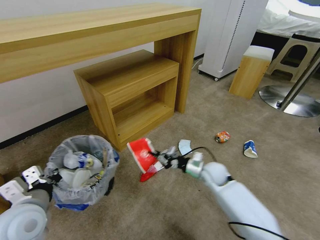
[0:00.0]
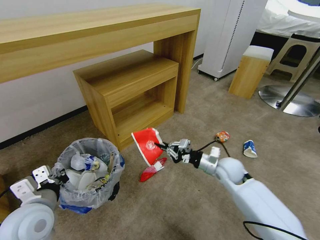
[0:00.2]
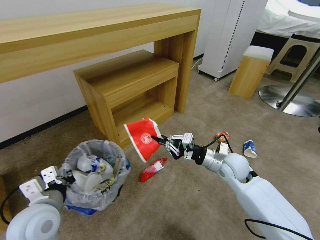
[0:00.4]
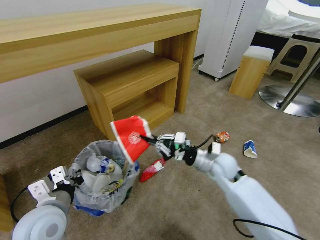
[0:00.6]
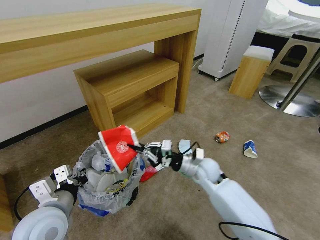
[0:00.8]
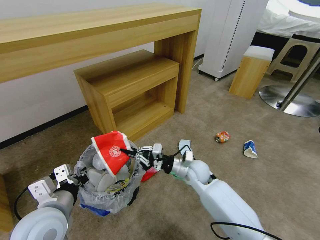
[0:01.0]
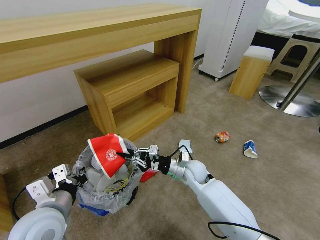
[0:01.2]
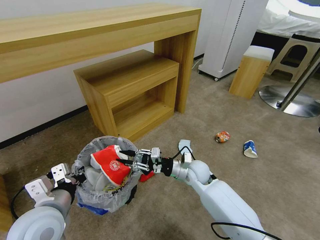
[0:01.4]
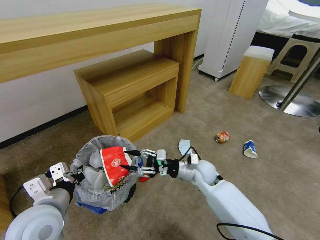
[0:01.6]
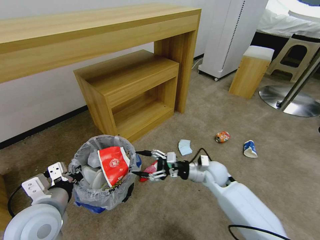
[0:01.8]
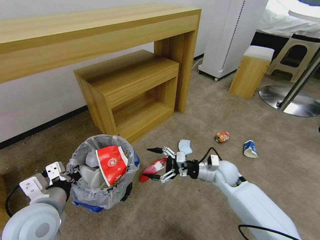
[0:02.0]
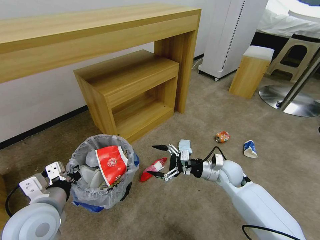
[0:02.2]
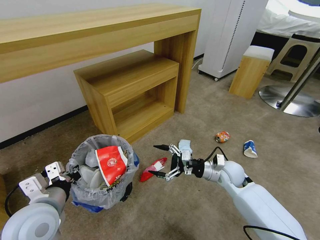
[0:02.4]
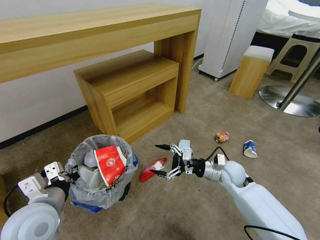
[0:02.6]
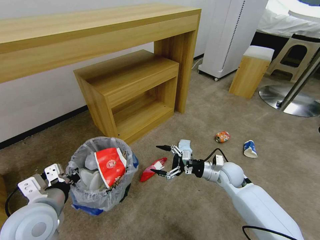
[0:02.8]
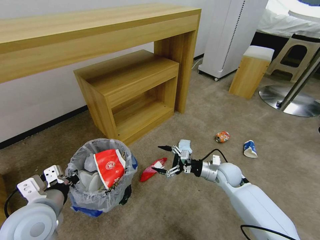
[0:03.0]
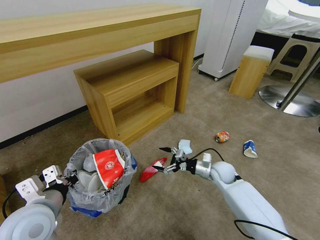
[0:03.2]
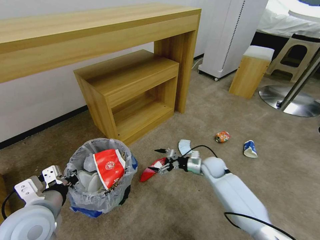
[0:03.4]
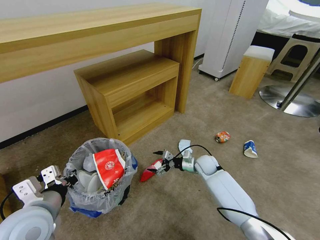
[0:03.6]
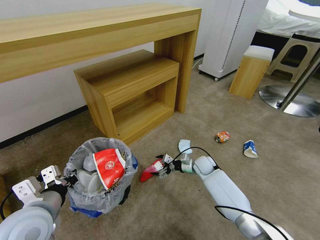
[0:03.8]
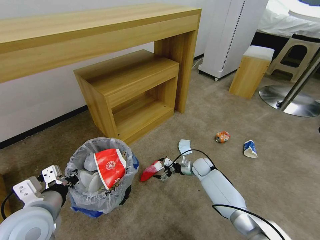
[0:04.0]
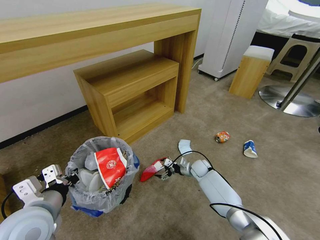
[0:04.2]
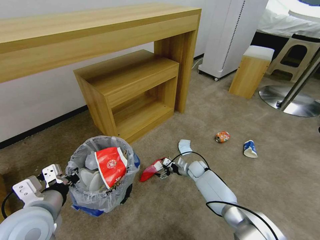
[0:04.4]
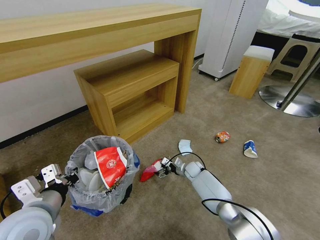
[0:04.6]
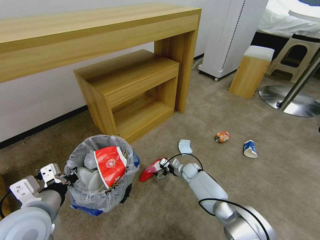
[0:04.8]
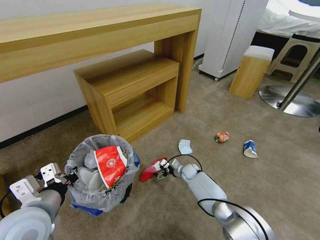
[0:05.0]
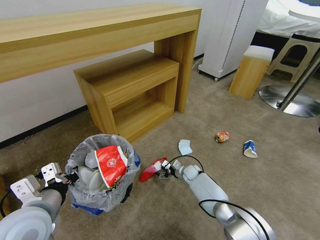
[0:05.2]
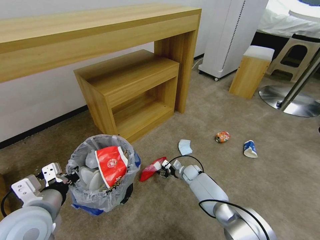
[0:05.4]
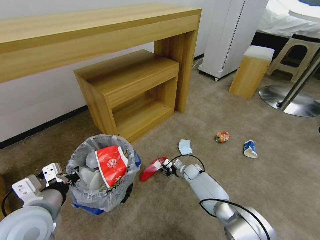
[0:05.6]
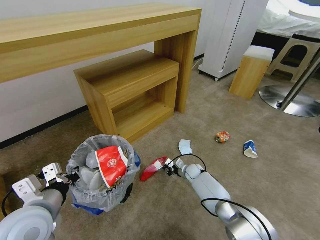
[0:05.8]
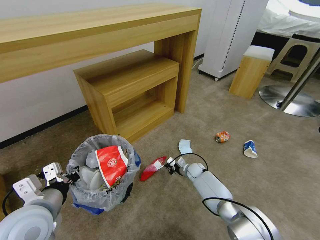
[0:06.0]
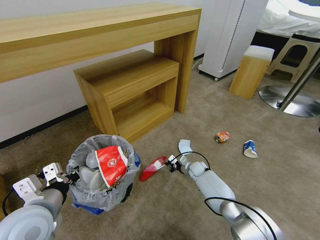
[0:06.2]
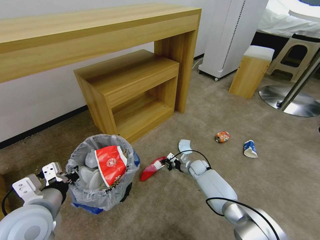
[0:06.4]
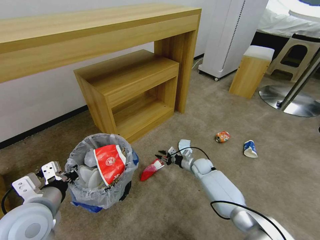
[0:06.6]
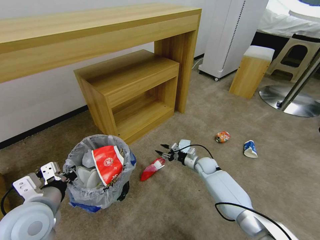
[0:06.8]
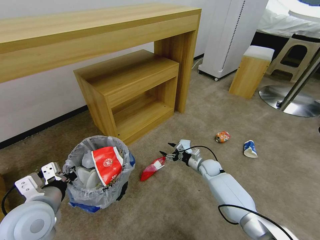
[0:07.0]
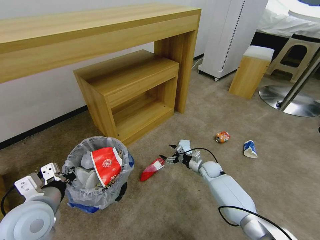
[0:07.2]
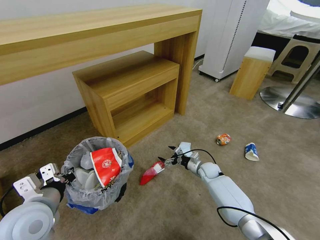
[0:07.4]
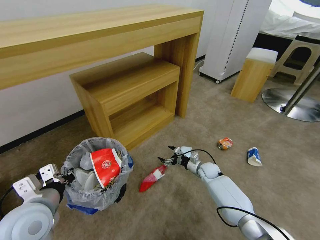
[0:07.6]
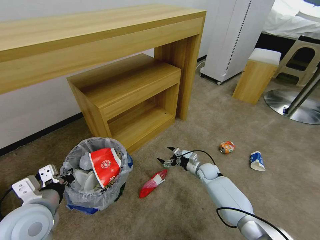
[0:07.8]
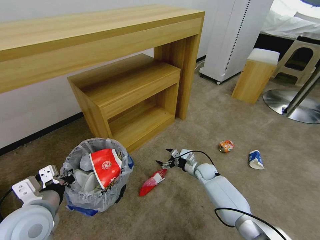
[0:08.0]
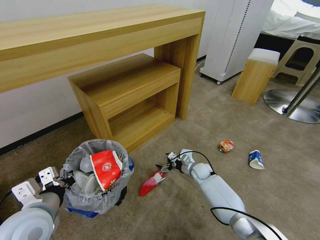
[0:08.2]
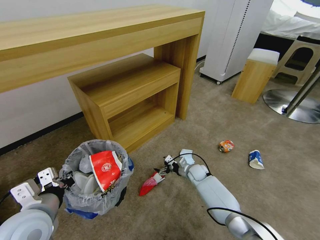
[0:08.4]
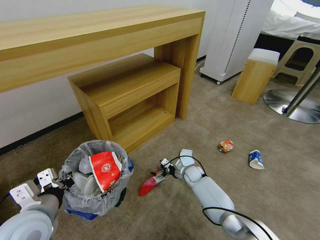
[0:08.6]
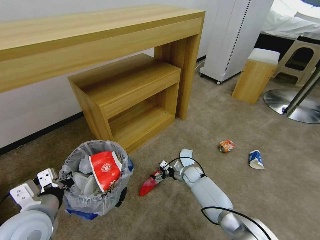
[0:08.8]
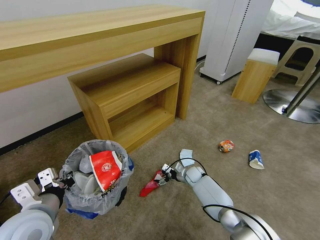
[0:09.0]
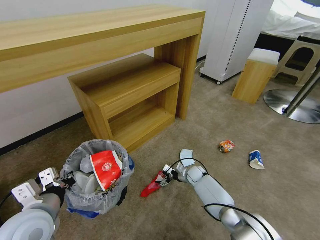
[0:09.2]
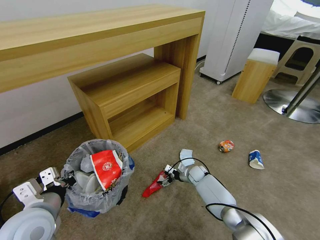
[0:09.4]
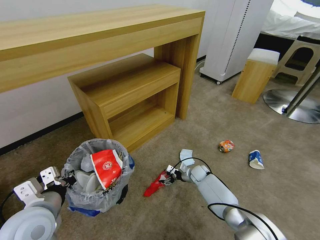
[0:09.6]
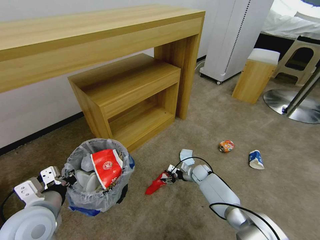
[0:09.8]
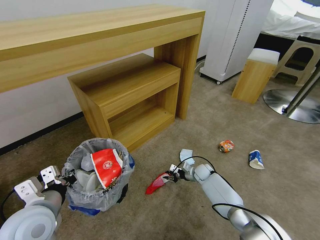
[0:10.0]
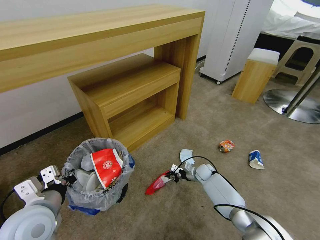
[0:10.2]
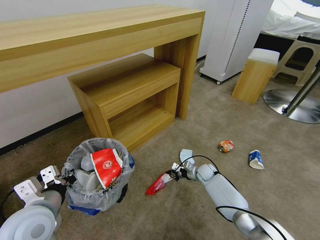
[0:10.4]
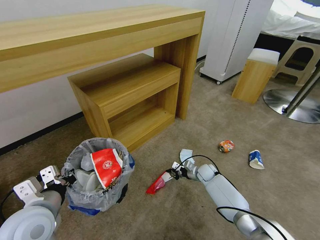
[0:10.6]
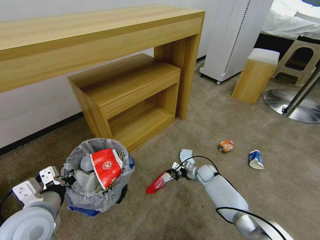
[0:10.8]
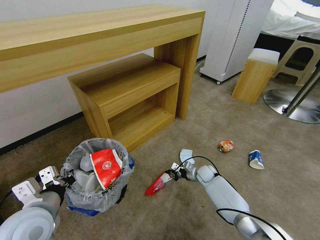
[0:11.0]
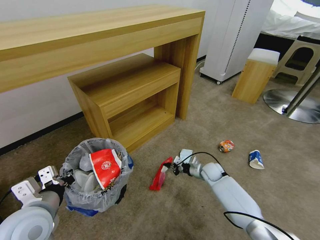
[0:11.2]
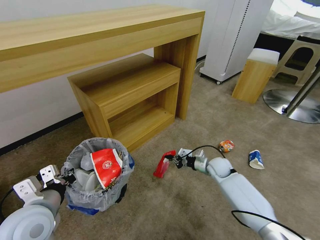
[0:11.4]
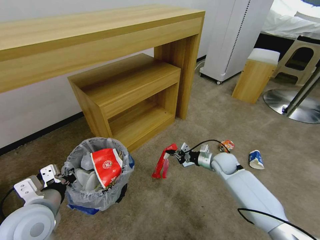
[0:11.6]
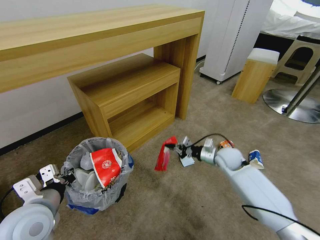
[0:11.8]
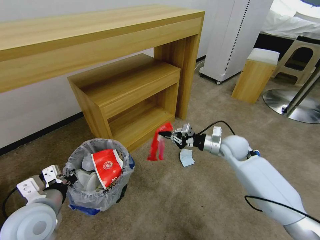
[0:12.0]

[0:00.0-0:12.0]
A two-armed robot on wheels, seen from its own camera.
Task of the whole recording: Pick up the trash bin and place the garbage on the floor into it.
0:00.0 to 0:01.6: The left gripper goes approximately 5 cm to the right. The right gripper shifts roughly 5 cm to the left, and opens its fingers.
0:01.6 to 0:03.0: The right gripper travels to the right by approximately 10 cm, and opens its fingers.
0:03.0 to 0:04.4: The right gripper is displaced downward, forward and to the left by about 20 cm.
0:04.4 to 0:06.0: The right gripper closes its fingers.
0:06.0 to 0:07.6: The right gripper changes place by about 5 cm, and opens up.
0:07.6 to 0:09.0: The right gripper moves to the left, approximately 5 cm.
0:09.0 to 0:10.4: The right gripper heads to the right, covering approximately 5 cm, and closes.
0:10.4 to 0:12.0: The right gripper travels upward by about 25 cm.

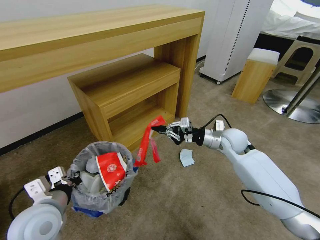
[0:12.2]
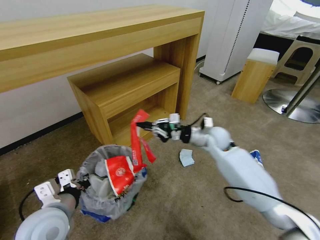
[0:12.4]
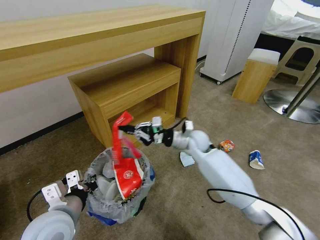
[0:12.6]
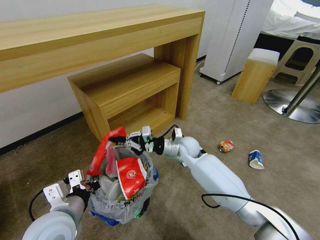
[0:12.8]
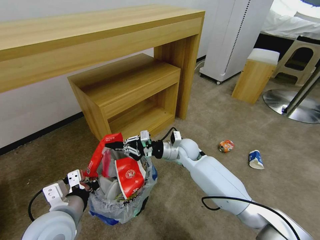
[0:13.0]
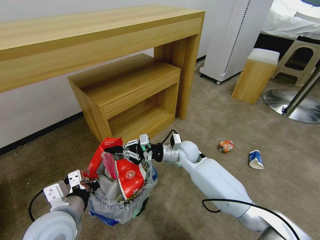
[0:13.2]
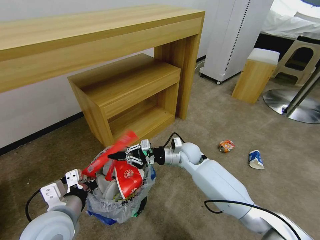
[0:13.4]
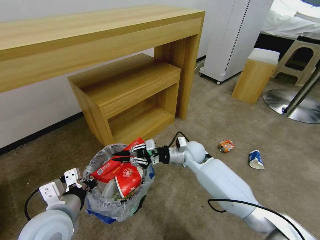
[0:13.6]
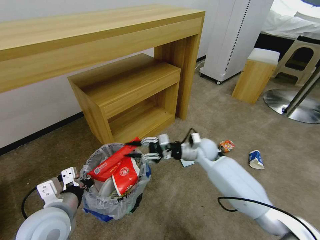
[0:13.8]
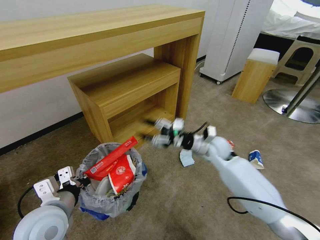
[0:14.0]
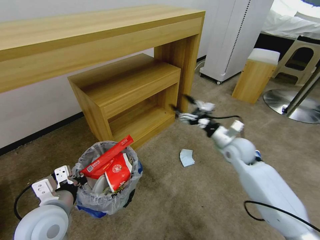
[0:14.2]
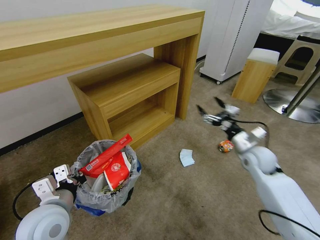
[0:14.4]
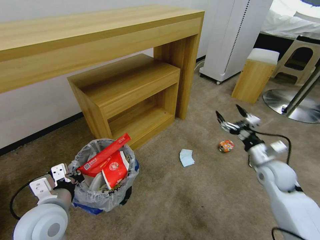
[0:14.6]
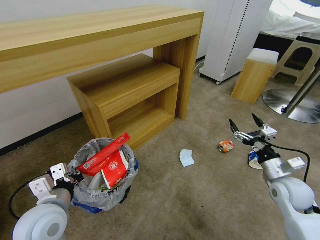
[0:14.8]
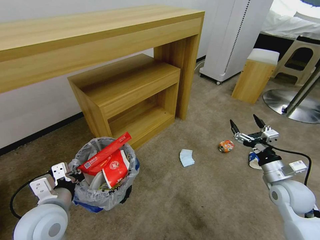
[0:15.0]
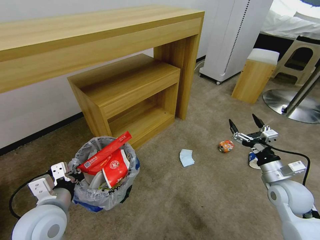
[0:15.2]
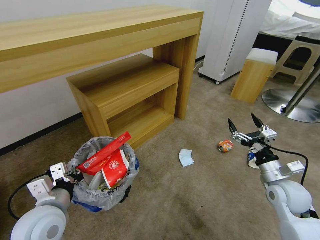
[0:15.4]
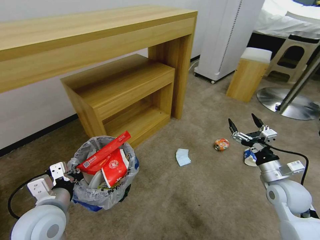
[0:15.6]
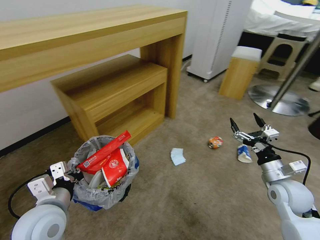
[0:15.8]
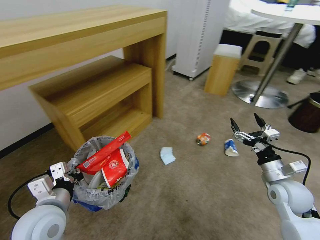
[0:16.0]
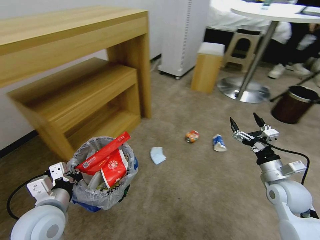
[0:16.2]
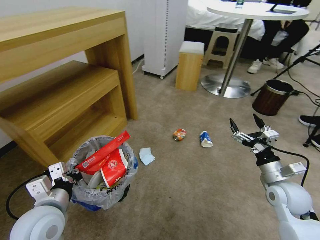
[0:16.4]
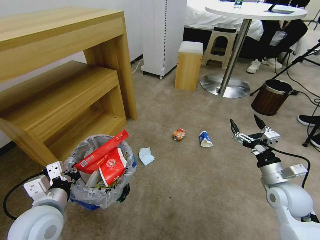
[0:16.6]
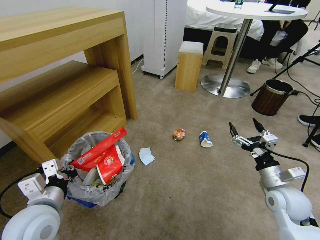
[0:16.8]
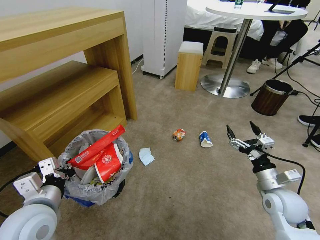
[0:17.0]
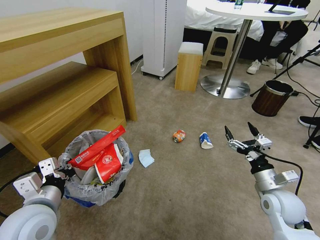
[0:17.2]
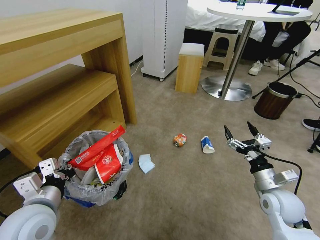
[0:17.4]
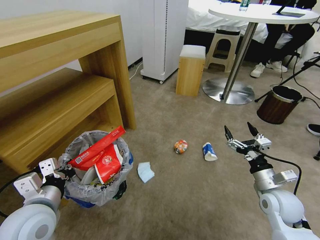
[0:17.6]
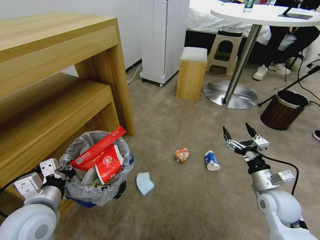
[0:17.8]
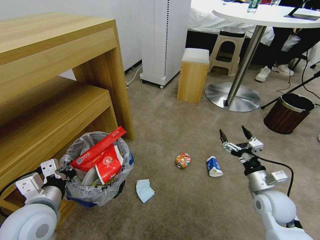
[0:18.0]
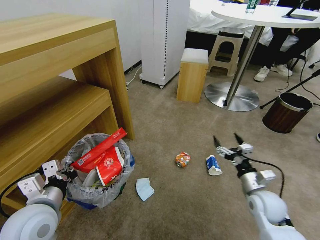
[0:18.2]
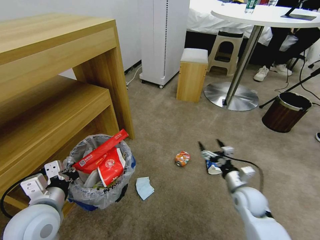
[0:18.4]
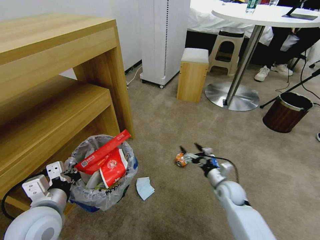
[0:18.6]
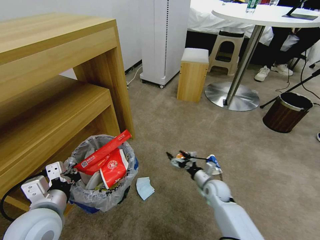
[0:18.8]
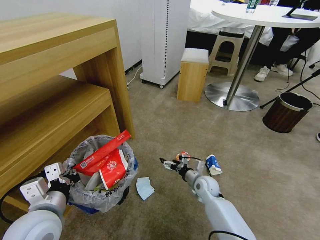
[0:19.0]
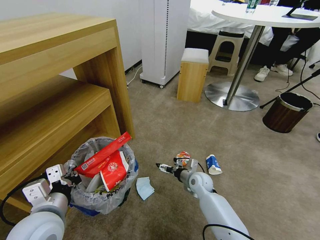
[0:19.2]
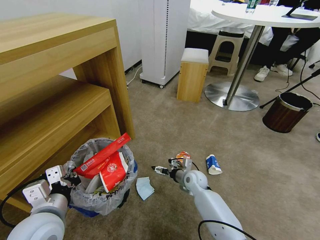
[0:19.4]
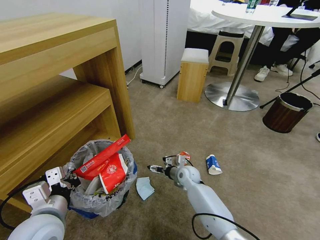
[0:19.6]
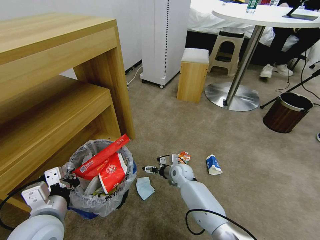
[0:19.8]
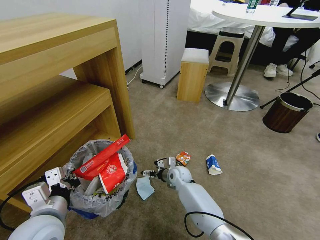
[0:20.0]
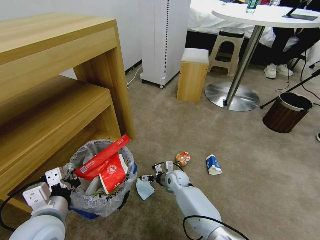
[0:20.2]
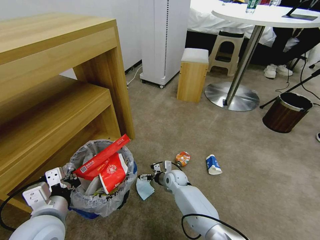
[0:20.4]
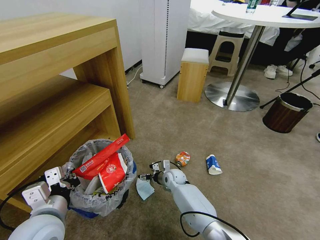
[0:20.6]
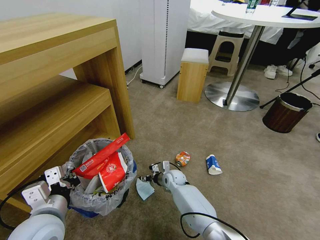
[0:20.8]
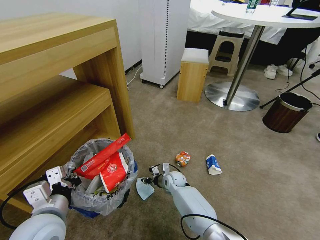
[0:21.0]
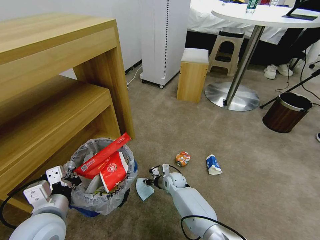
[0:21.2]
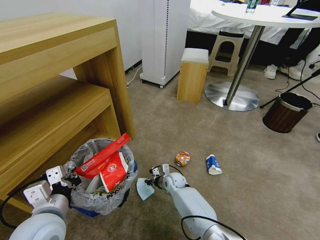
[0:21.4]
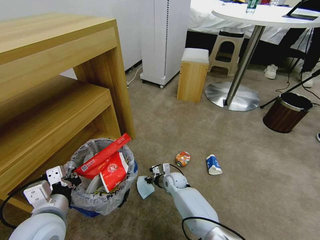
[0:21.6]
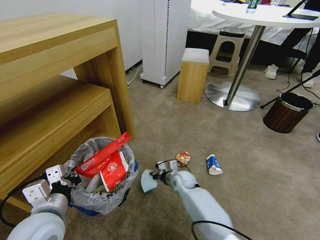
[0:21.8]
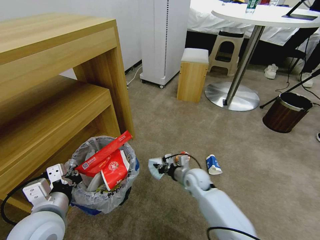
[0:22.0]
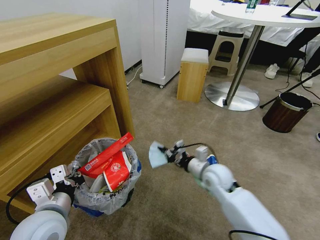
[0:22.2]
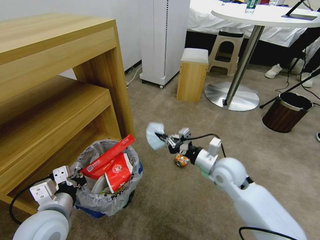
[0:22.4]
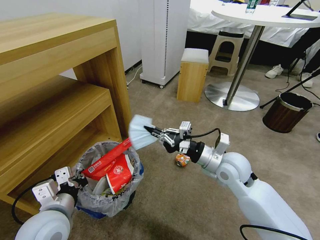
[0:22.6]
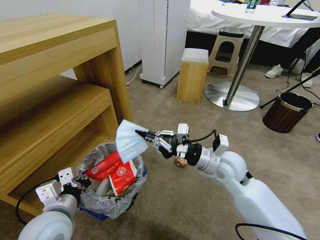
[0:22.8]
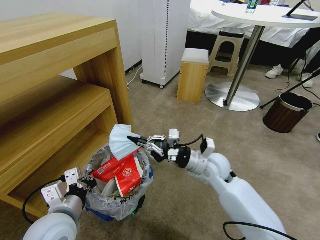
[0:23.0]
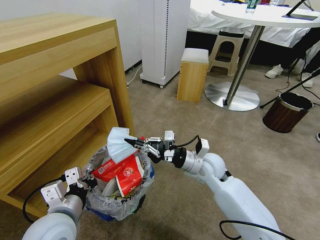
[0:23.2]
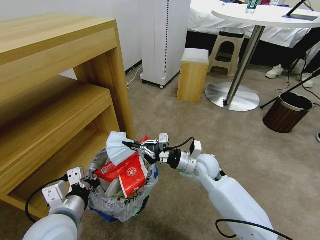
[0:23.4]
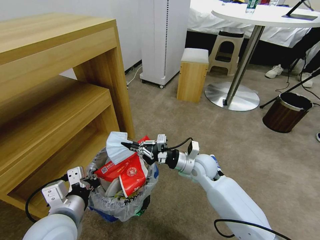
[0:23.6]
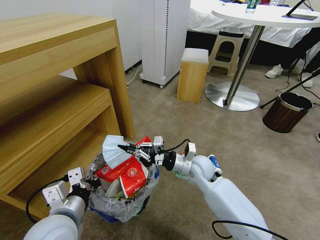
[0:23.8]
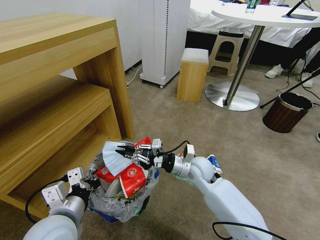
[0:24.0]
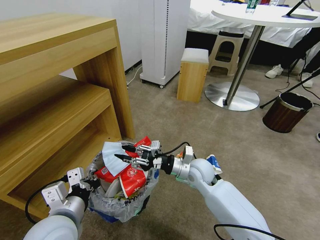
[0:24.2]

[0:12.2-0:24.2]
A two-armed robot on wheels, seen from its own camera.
Task of the whole recording: Pick up the trash bin and place the garbage on the floor into it.
0:12.2 to 0:13.8: The right gripper moves to the left and downward, about 10 cm, and opens its fingers.
0:13.8 to 0:15.2: The right gripper is displaced to the right and backward by approximately 30 cm, and opens up.
0:16.6 to 0:18.2: The right gripper is displaced downward by about 5 cm.
0:18.2 to 0:19.8: The right gripper moves to the left, forward and downward, roughly 30 cm.
0:19.8 to 0:21.2: The right gripper ends up about 5 cm from where it was, and closes its fingers.
0:21.2 to 0:22.6: The right gripper moves upward and to the right, about 30 cm.
0:22.6 to 0:24.2: The right gripper travels downward and to the left by some 10 cm, and opens its fingers.
